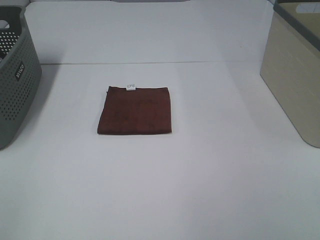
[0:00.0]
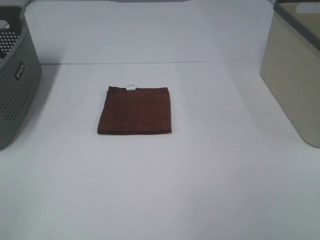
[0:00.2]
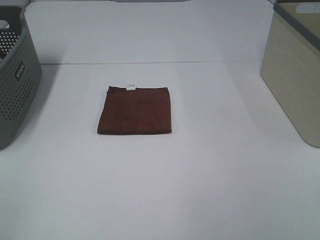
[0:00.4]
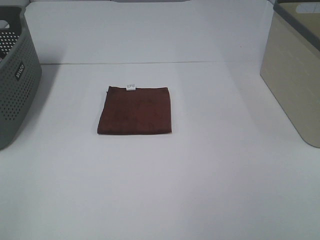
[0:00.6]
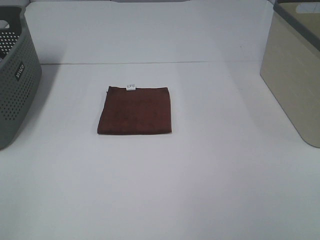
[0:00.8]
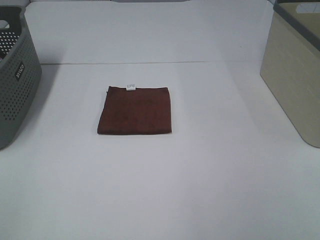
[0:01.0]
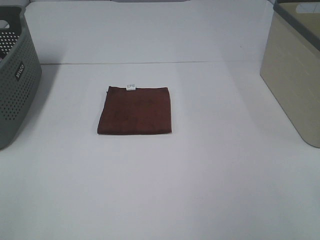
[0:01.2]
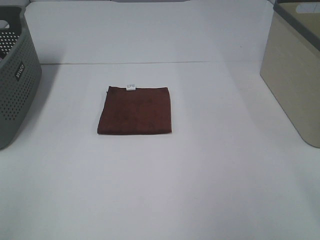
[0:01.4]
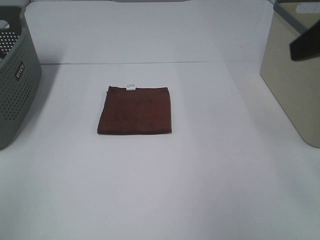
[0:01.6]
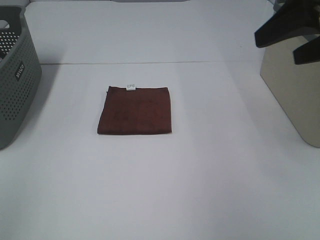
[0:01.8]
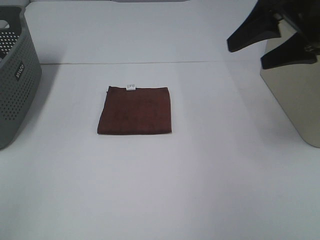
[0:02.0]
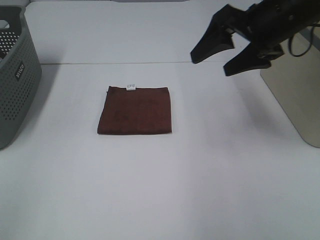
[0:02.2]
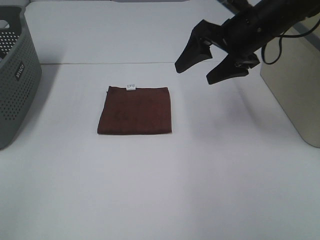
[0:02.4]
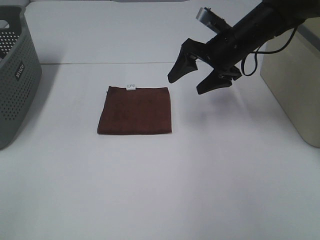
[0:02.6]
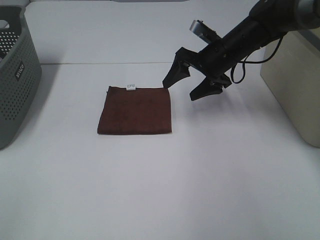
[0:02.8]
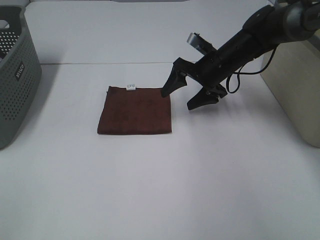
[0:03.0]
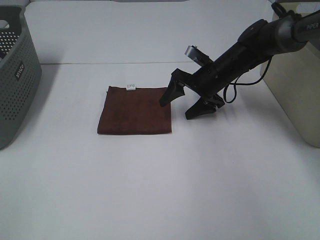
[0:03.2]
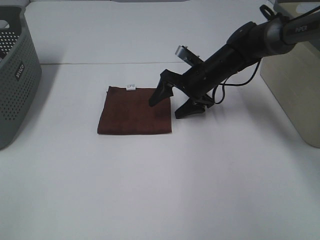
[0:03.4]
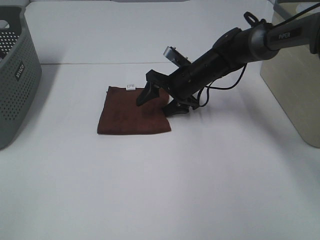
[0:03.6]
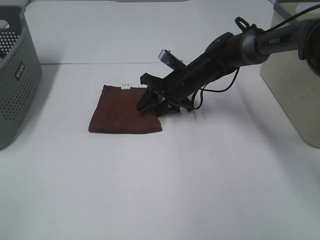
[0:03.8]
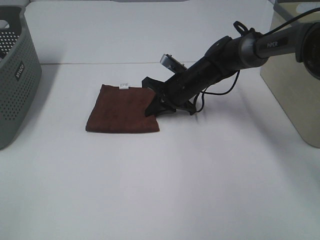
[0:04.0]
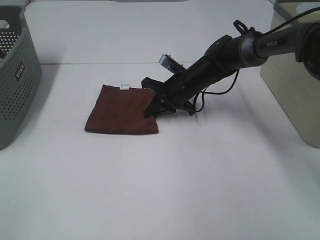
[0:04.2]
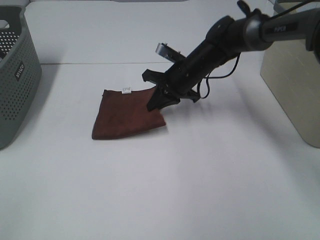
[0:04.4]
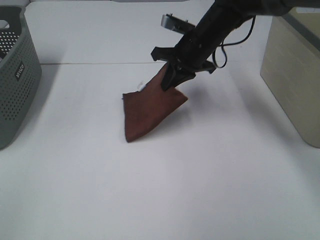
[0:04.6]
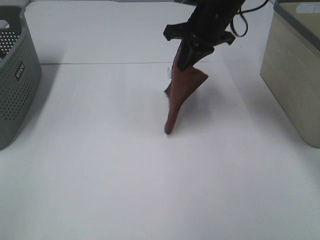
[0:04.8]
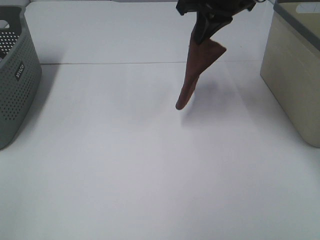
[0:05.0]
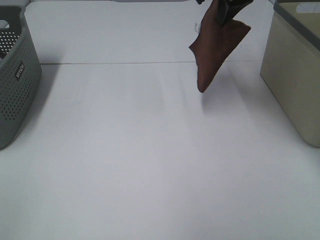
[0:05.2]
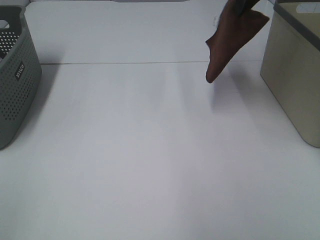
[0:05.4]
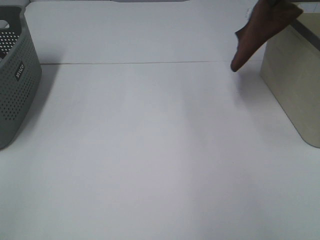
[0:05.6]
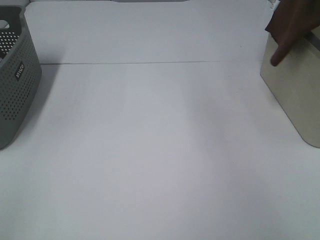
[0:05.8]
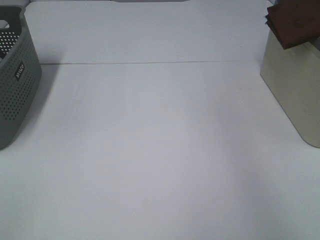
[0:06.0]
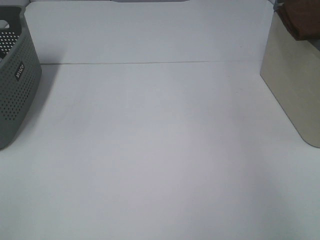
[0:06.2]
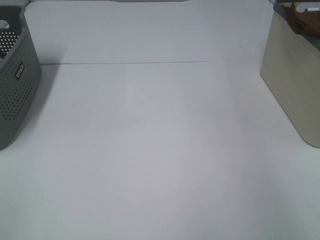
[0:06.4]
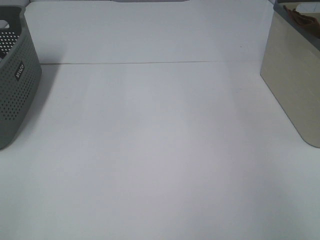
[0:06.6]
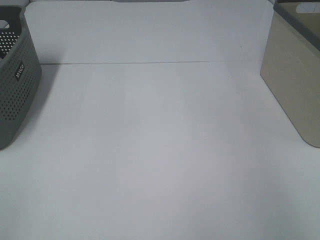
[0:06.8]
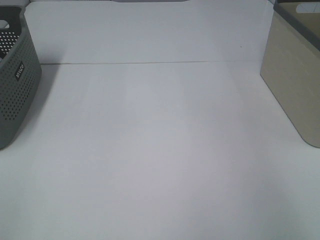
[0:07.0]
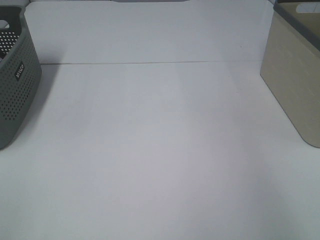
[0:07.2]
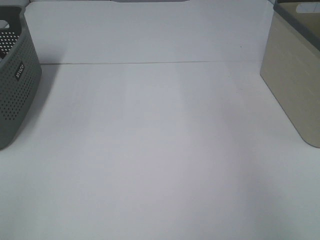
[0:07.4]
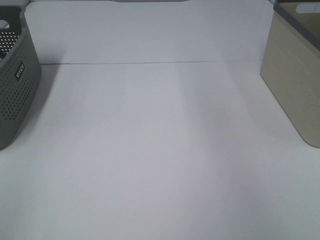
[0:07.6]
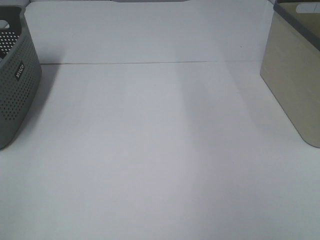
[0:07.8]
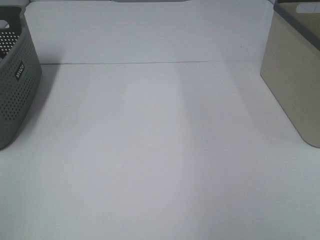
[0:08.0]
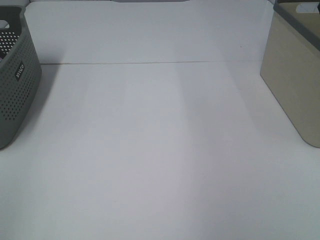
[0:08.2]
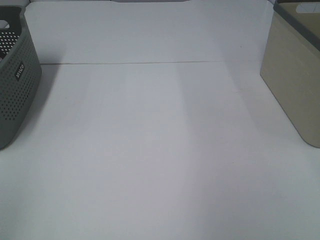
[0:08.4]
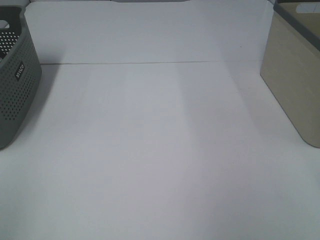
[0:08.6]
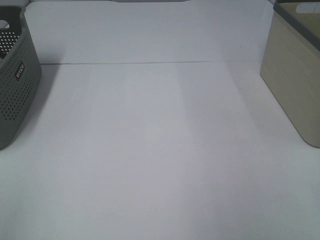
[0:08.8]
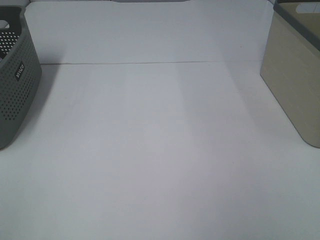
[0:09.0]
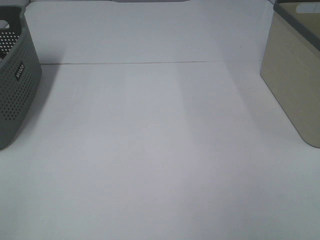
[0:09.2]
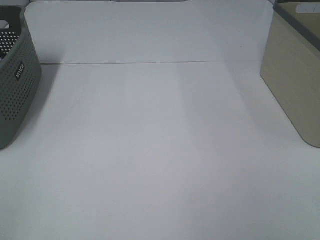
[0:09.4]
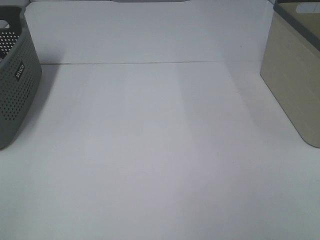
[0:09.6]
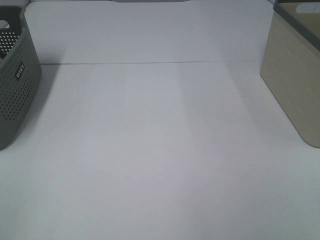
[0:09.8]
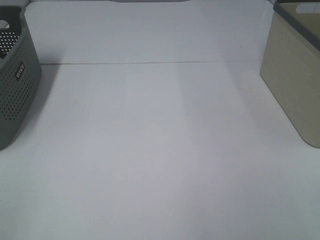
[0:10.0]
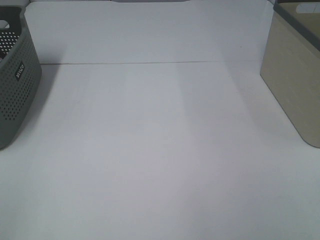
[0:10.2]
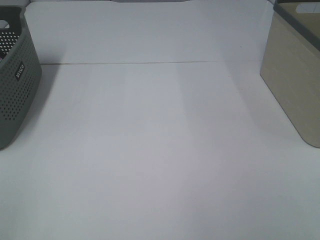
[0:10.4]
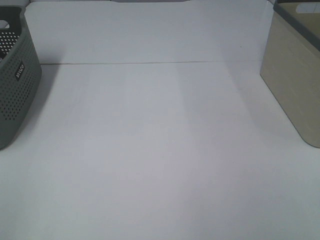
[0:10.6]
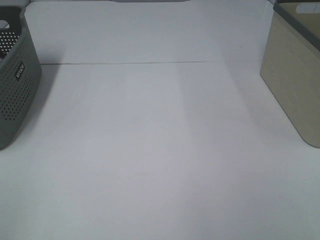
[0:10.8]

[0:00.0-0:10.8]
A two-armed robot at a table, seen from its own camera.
Step, 0:00.0 to 0:04.0: Right hand: grab the folded brown towel.
Step, 0:04.2 to 0:07.0: Right hand: place the brown towel in right basket.
0:00.0 to 0:01.6: The right gripper goes some 20 cm forward and upward.
0:01.6 to 0:03.0: The right gripper heads forward, downward and to the left, covering approximately 35 cm.
0:03.0 to 0:04.6: The right gripper travels upward and to the left by some 10 cm, and closes up.
0:04.6 to 0:06.2: The right gripper goes about 35 cm to the right and upward.
0:06.2 to 0:07.8: The right gripper travels to the left, backward and upward by roughly 15 cm, and opens its fingers.

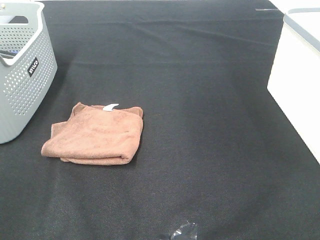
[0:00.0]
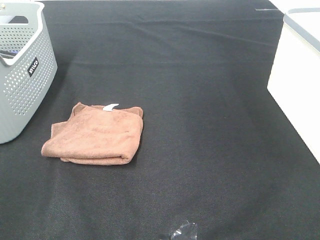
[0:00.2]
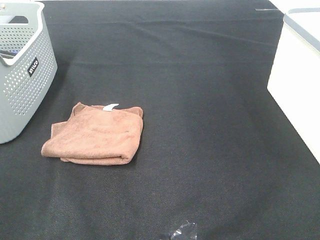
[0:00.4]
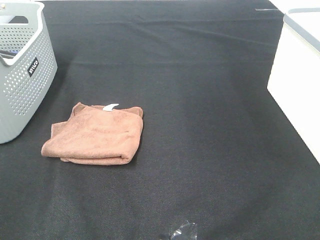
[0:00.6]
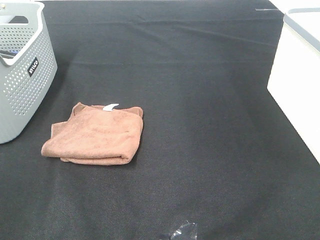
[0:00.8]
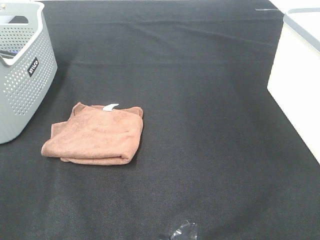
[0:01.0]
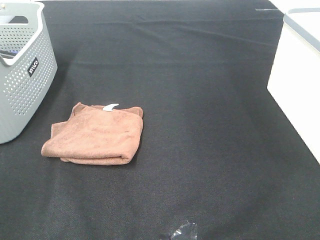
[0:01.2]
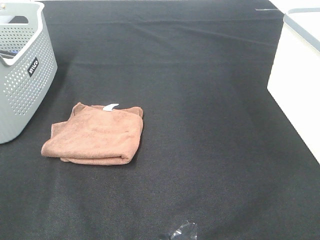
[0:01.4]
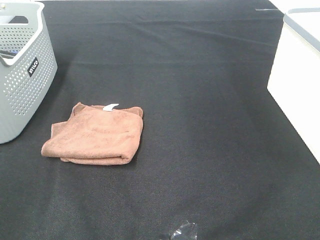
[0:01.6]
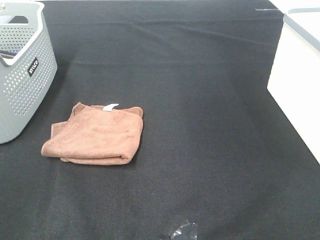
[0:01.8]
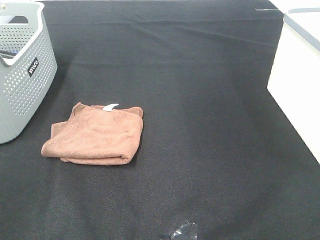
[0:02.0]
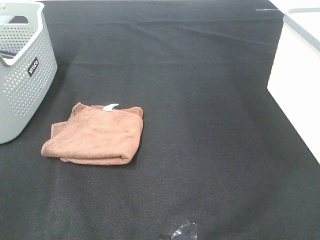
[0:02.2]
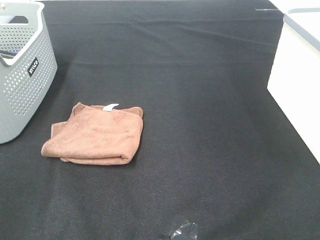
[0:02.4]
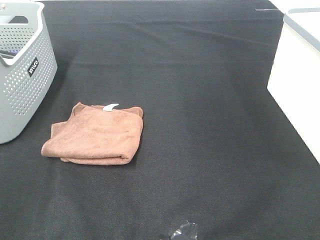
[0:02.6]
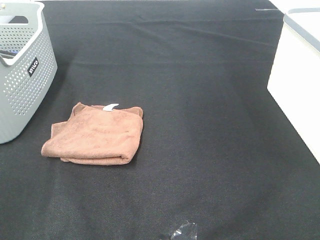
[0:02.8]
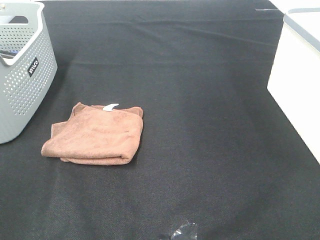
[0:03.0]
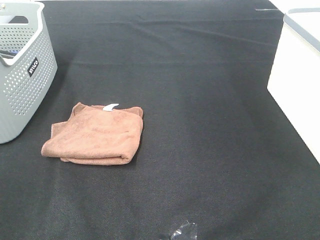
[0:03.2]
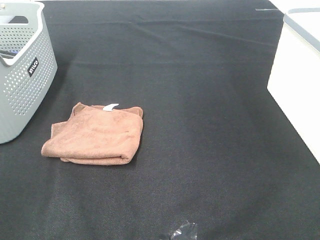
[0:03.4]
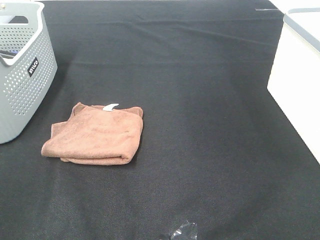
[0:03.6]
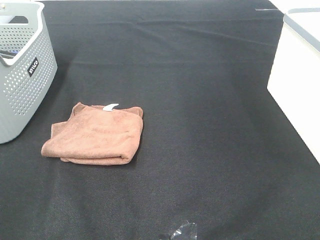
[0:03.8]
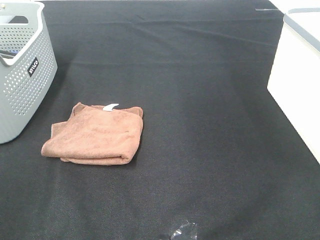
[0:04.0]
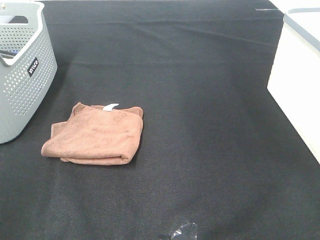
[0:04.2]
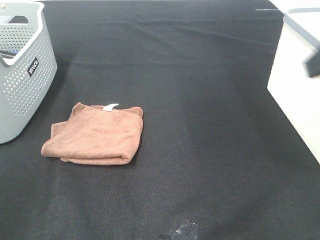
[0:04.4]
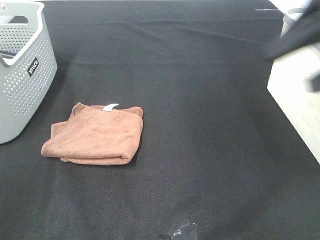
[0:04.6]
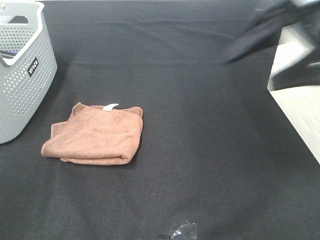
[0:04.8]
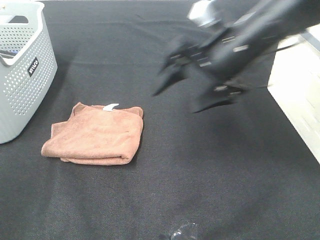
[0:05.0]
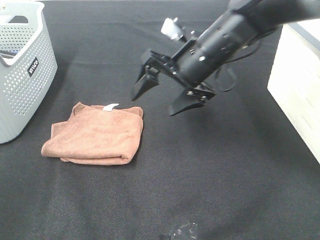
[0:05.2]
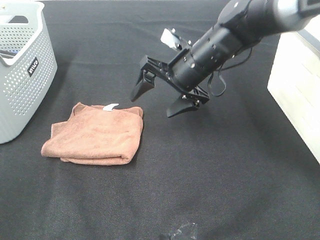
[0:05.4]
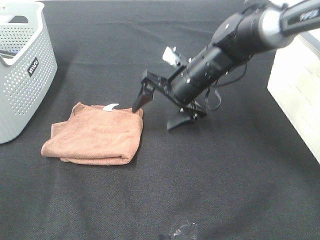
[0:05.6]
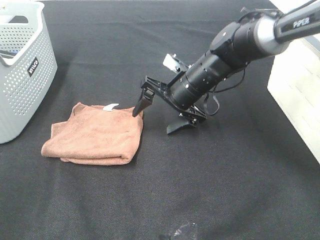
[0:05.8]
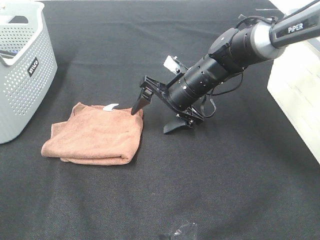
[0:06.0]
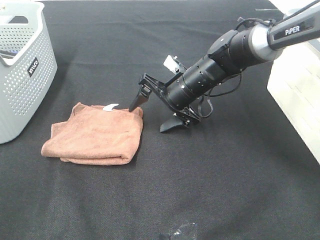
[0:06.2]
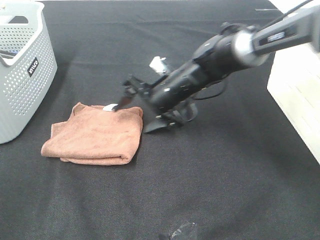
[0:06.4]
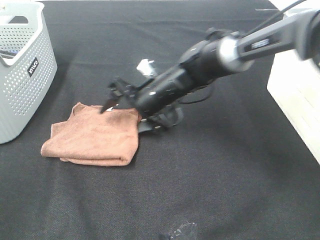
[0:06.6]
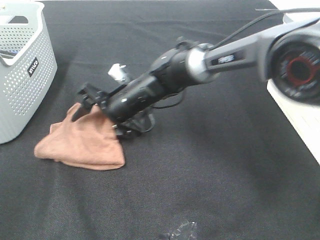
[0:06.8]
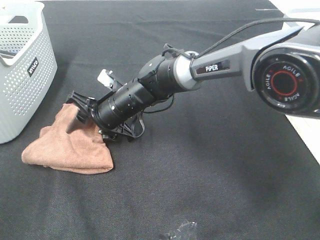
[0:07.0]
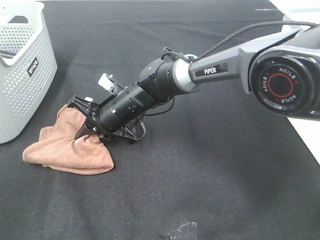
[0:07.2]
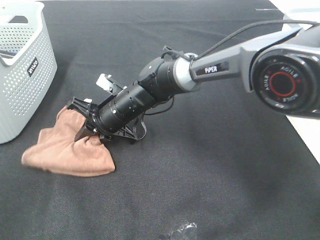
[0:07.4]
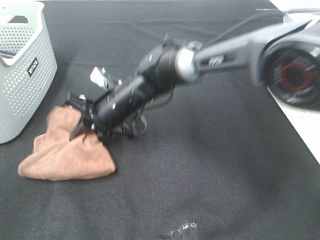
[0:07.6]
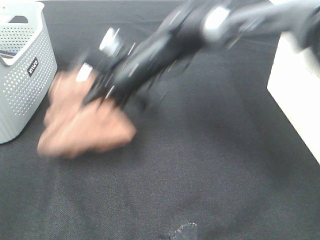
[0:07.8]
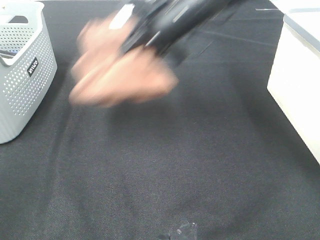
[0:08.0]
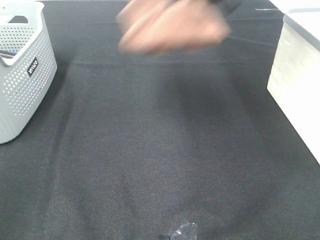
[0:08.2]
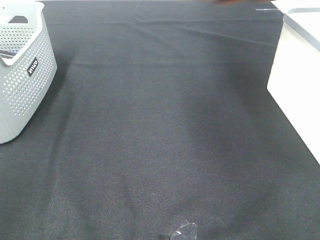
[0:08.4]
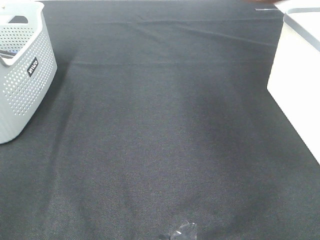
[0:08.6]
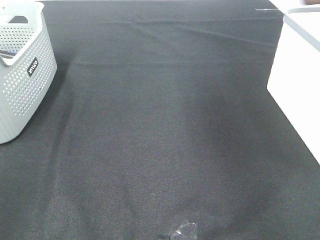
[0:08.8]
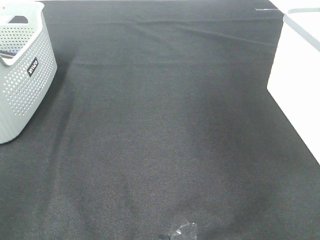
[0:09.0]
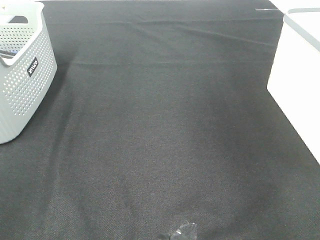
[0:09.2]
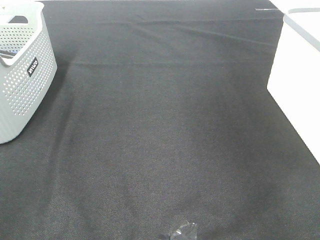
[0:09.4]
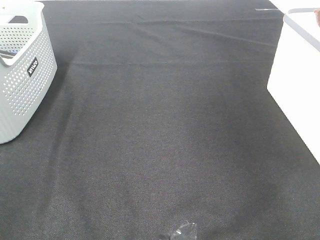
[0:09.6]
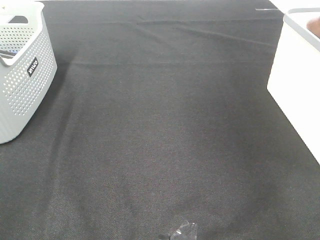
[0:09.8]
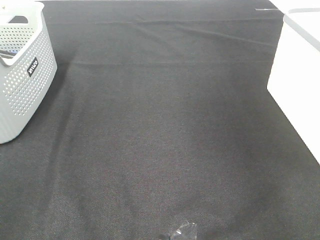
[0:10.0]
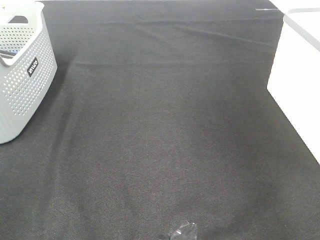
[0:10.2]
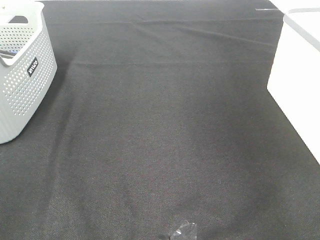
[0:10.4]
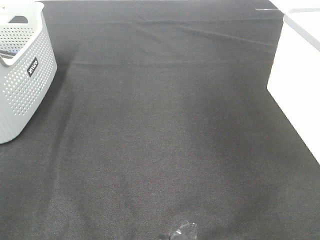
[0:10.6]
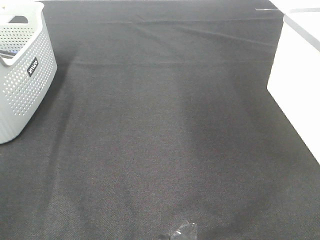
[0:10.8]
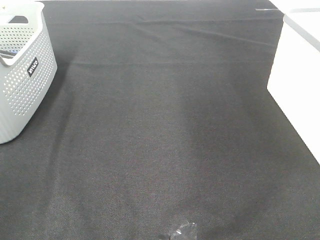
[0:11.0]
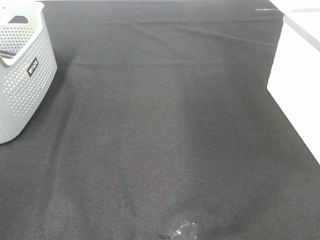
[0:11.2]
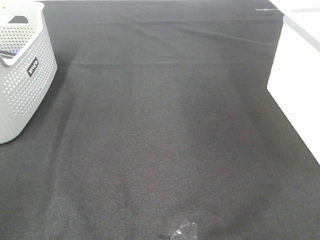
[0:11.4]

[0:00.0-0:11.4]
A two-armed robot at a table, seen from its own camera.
Step, 0:00.0 to 0:07.4: Right hand: grab the folded brown towel.
Step, 0:07.6 to 0:10.0: Right hand: place the brown towel in right basket.
0:00.0 to 0:02.8: Both grippers stay put.
0:04.2 to 0:05.6: The right gripper goes some 40 cm downward, forward and to the left.
0:05.6 to 0:07.2: The right gripper goes roughly 15 cm to the left and downward, and closes.
0:07.2 to 0:08.6: The right gripper goes about 50 cm to the right and upward.
0:08.6 to 0:10.0: The right gripper is displaced downward and to the right by roughly 10 cm, and opens.
